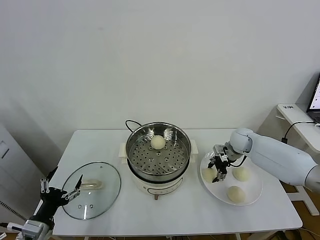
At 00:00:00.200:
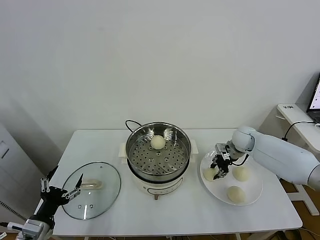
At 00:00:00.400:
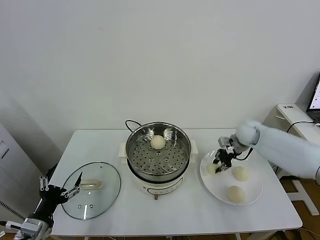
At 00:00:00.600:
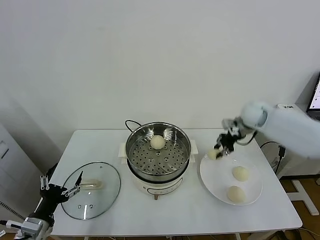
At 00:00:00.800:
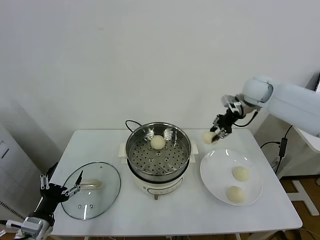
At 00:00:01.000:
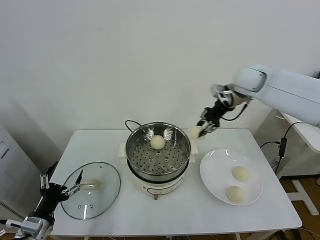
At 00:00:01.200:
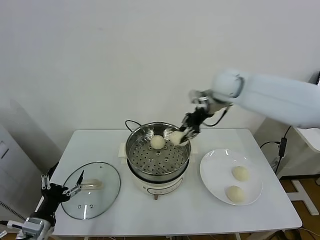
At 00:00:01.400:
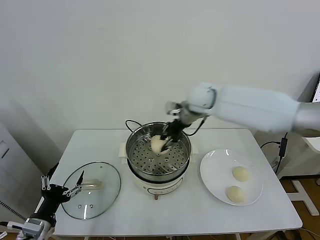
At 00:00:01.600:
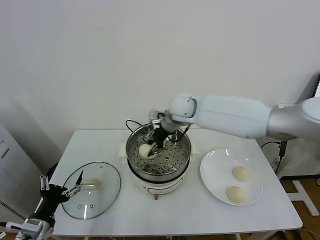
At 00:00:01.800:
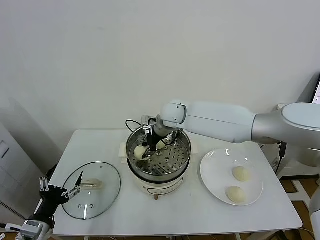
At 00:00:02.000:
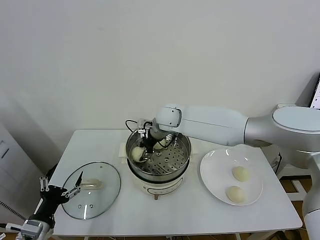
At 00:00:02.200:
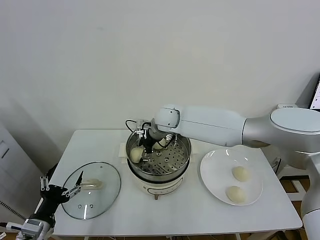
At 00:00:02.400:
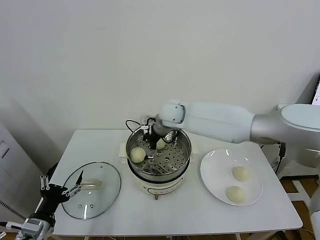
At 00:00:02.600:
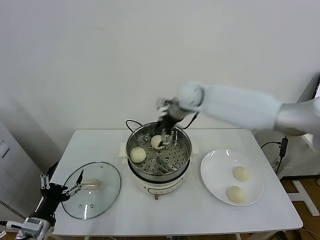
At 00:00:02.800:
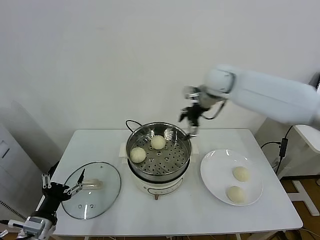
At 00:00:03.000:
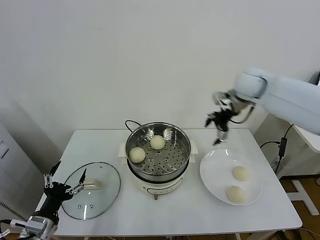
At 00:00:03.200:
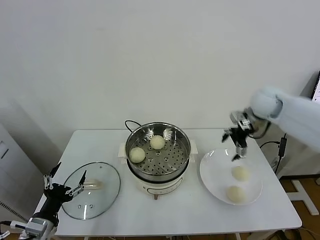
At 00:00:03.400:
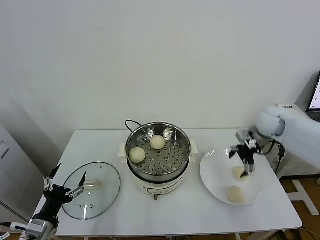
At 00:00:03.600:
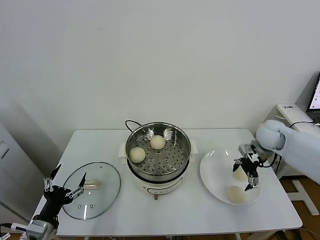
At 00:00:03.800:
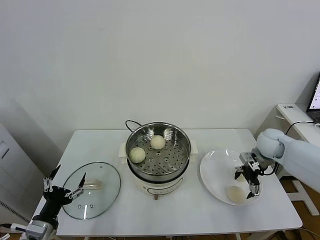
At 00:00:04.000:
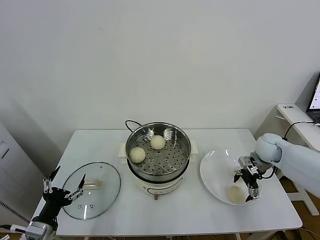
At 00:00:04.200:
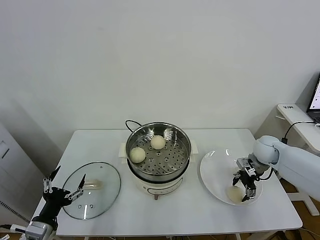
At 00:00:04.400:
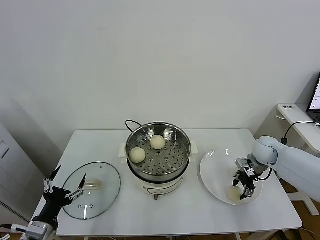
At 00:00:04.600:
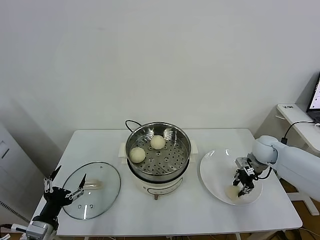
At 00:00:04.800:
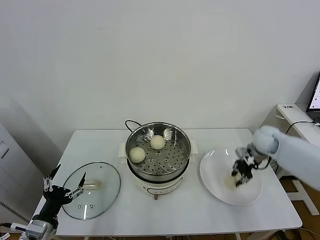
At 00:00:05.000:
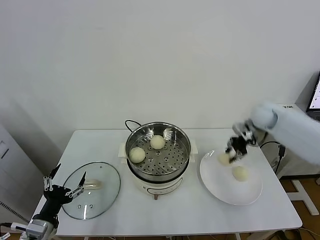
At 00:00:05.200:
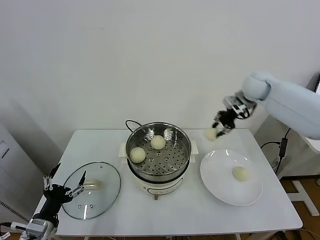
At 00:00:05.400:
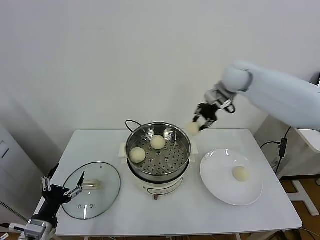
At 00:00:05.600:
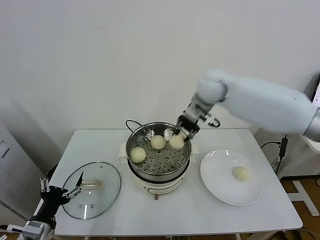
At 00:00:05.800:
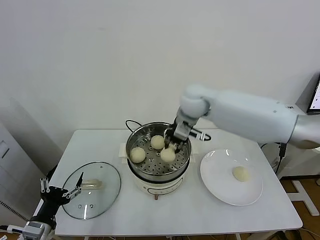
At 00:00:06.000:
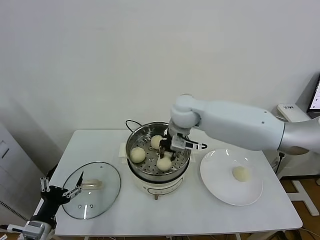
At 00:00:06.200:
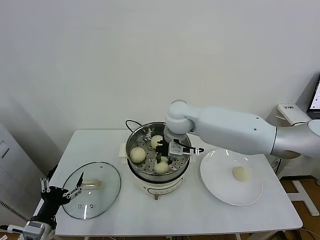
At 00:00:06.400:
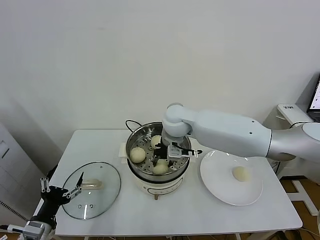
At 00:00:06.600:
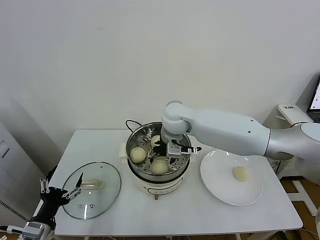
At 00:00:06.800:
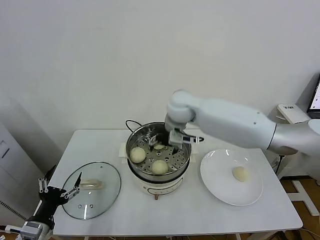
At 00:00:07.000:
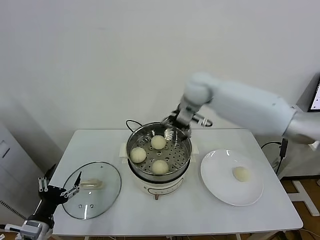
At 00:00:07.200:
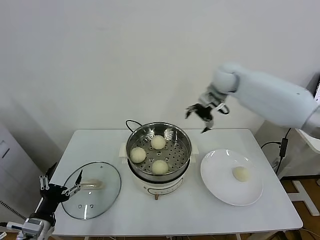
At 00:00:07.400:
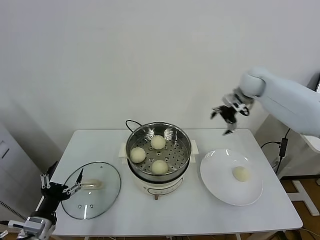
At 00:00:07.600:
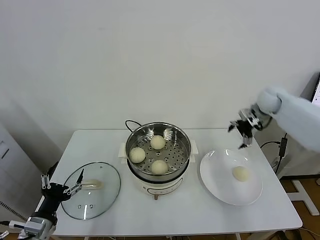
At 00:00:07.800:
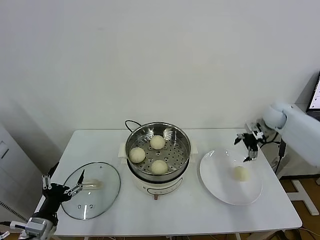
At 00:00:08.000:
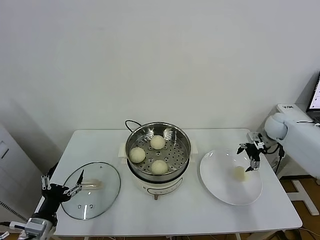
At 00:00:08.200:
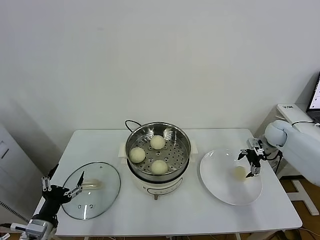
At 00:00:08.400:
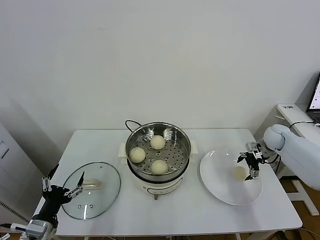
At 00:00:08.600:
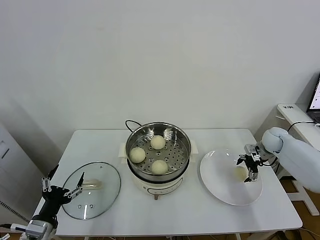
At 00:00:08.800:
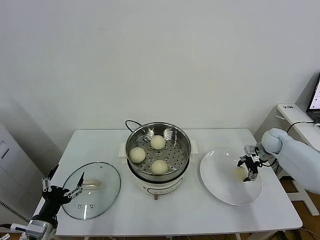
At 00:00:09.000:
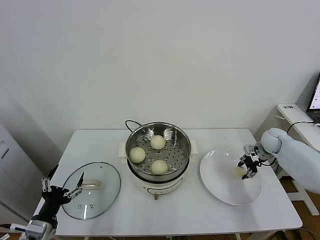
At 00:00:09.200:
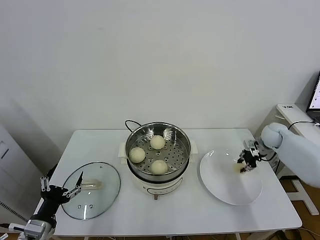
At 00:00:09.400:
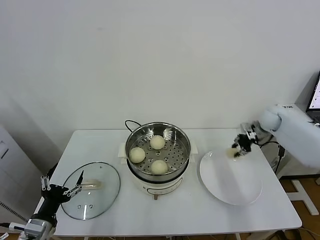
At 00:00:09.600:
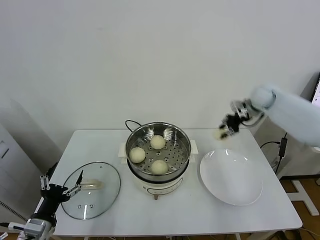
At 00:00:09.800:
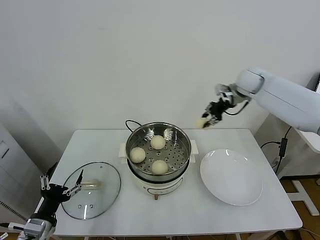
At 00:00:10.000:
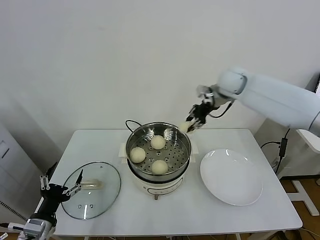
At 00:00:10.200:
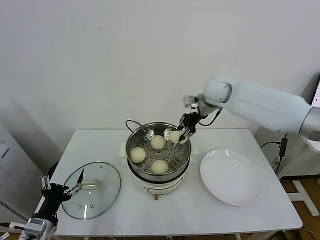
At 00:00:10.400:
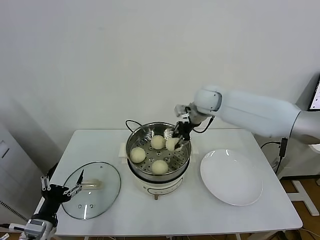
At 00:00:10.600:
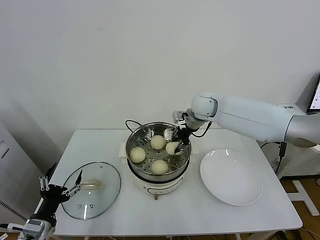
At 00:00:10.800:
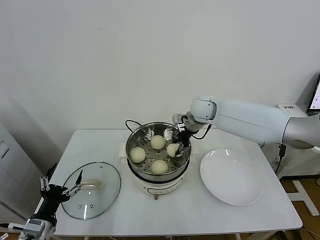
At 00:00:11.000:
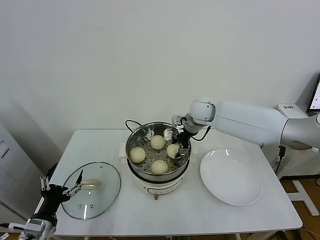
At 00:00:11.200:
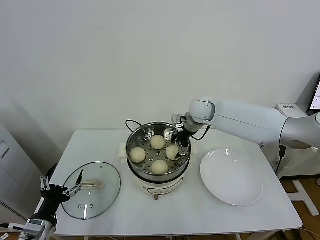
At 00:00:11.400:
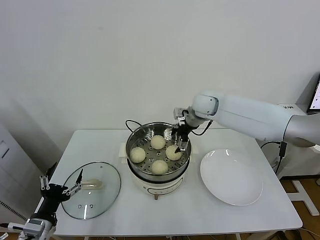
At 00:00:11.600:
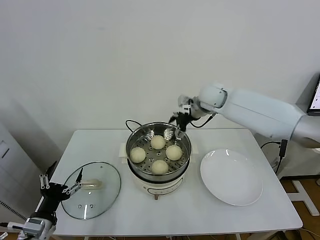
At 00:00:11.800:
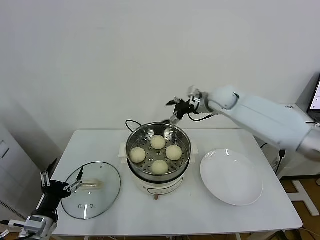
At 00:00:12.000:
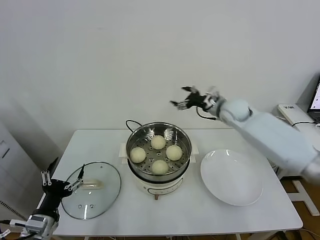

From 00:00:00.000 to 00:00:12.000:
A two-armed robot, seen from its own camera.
Task of the whole recording: take steamed baozi put them in steamer.
Step, from 00:00:00.200 to 00:00:02.200: Place the baozi on the steamer with right gripper.
Step, from 00:00:02.600 to 00:00:04.200: Grasp the baozi in the plate with right gripper.
Step, from 00:00:04.400 to 00:00:06.600: Place the baozi on the steamer with right gripper.
Step, from 00:00:06.800 to 00:00:08.800: Grasp the baozi in the plate with right gripper.
Step, from 00:00:09.200 to 00:00:11.200: Place the baozi on the steamer with right gripper.
From 00:00:00.000 to 00:00:01.600: The right gripper travels to the left and upward by approximately 30 cm.
From 00:00:01.600 to 00:00:03.000: The right gripper heads to the right, covering about 25 cm, and opens.
From 00:00:03.000 to 00:00:04.400: The right gripper travels downward and to the right by about 25 cm, and closes.
From 00:00:04.400 to 00:00:06.000: The right gripper shifts about 35 cm to the left and upward.
From 00:00:06.000 to 00:00:07.600: The right gripper travels to the right by some 35 cm, and opens.
From 00:00:07.600 to 00:00:09.000: The right gripper goes roughly 15 cm downward, and closes.
From 00:00:09.000 to 00:00:10.400: The right gripper is displaced to the left and upward by about 35 cm.
From 00:00:10.400 to 00:00:12.000: The right gripper goes some 10 cm to the right, and opens up.

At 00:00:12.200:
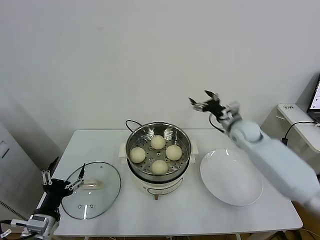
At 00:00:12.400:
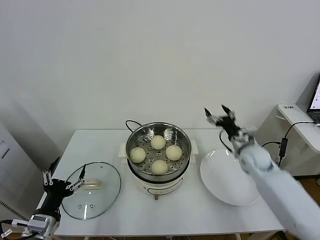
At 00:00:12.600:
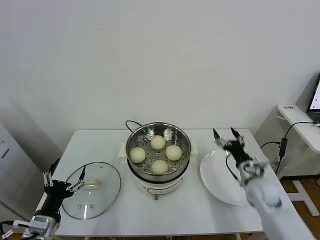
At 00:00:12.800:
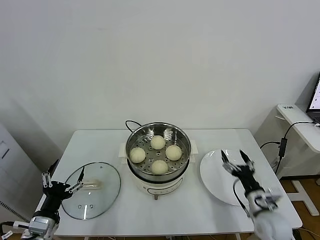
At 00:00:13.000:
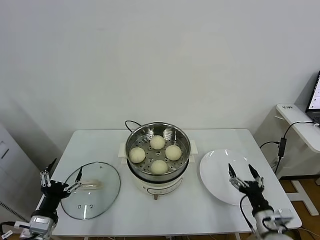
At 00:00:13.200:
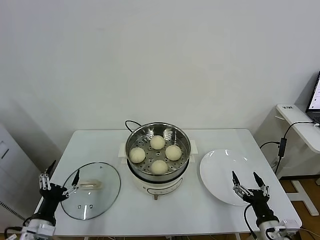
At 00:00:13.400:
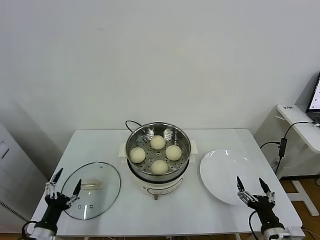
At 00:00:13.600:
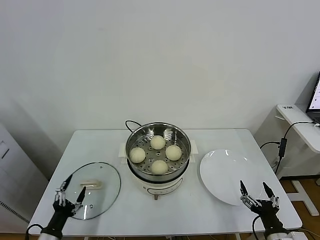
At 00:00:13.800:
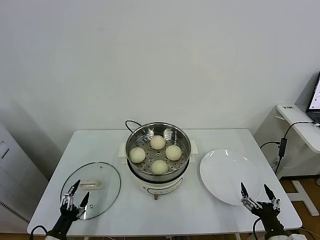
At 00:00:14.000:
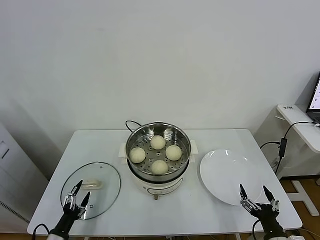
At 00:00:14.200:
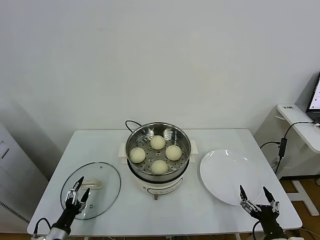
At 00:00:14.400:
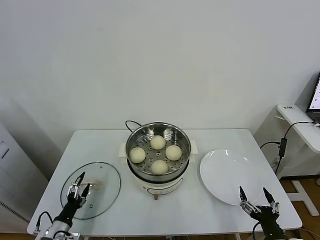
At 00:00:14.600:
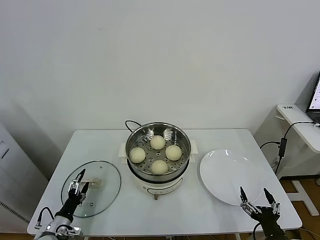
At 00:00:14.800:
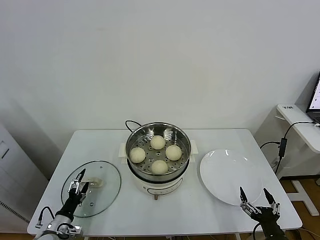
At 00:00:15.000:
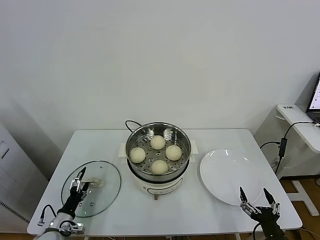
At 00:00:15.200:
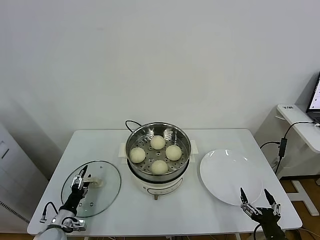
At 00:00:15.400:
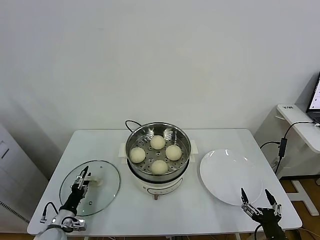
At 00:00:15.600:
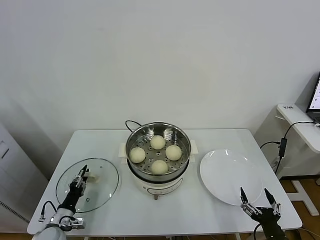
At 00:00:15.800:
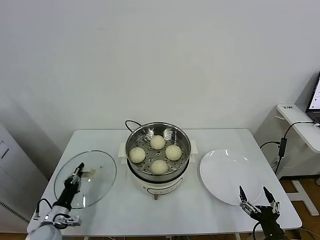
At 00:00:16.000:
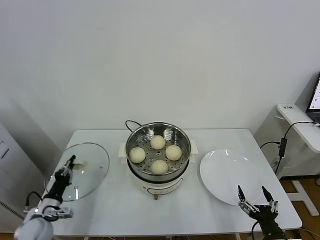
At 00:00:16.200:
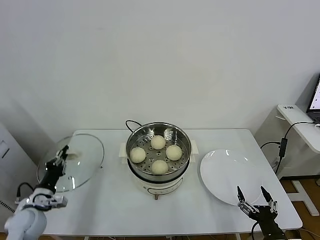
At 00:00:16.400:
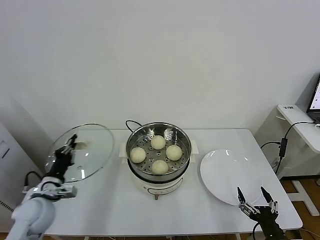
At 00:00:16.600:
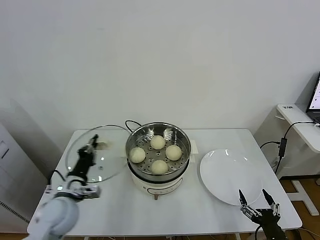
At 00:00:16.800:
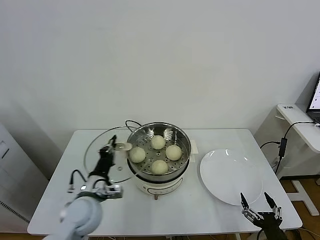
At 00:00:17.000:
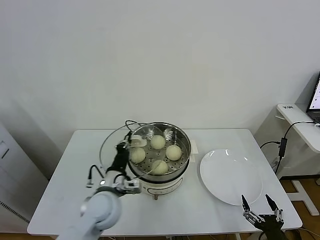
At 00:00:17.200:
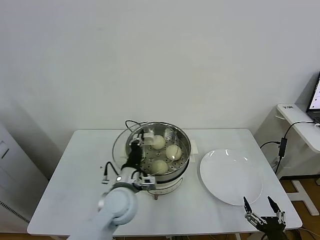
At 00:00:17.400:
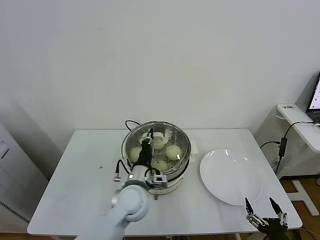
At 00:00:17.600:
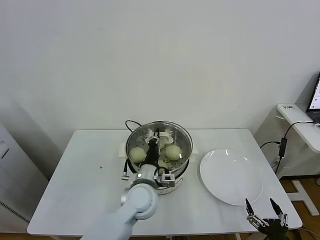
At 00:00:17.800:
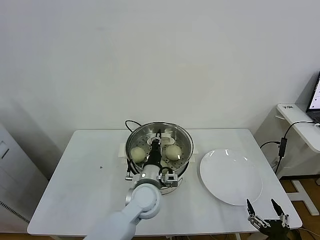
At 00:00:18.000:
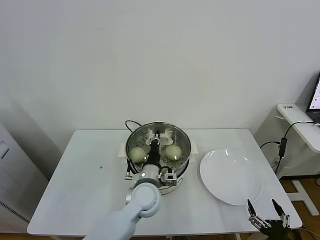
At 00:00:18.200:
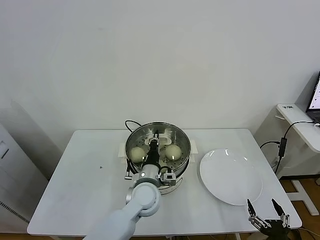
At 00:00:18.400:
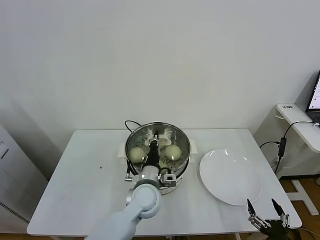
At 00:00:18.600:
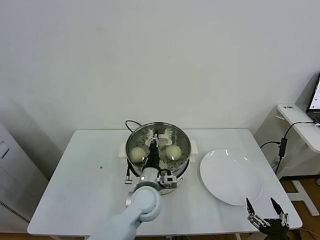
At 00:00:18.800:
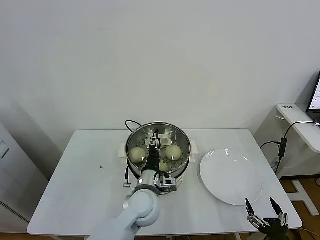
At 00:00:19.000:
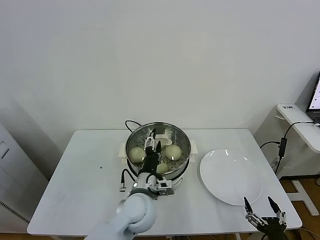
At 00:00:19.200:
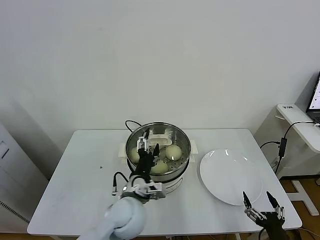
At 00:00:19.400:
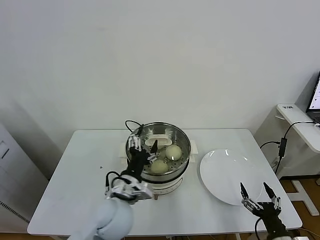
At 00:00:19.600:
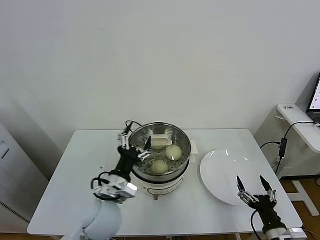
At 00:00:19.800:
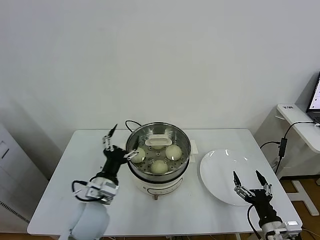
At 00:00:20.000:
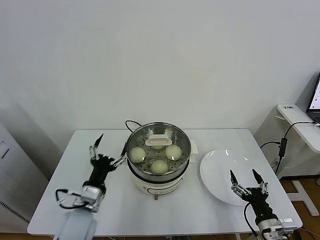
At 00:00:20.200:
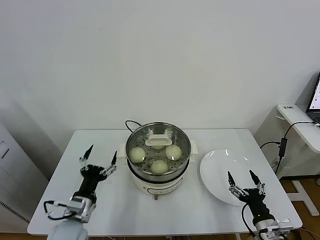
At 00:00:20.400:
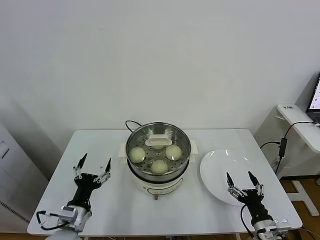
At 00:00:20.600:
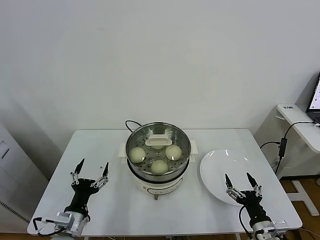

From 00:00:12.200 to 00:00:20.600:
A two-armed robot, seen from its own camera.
Task of the whole recording: take steamed baozi put them in steamer.
Step, from 00:00:12.200 to 00:00:15.800: Grasp the pot lid with left gripper.
Step, from 00:00:16.200 to 00:00:19.200: Place the pot lid on the steamer with left gripper.
From 00:00:12.200 to 00:00:13.600: The left gripper heads downward, covering about 10 cm. The right gripper is displaced backward and downward by some 40 cm.
From 00:00:13.600 to 00:00:15.000: The left gripper moves forward and downward, roughly 10 cm.
From 00:00:15.000 to 00:00:16.400: The left gripper heads upward, covering about 15 cm, and closes its fingers.
From 00:00:16.400 to 00:00:17.800: The left gripper is displaced to the right by about 35 cm.
From 00:00:17.800 to 00:00:19.200: The left gripper shifts by about 5 cm, and opens its fingers.
From 00:00:19.200 to 00:00:20.600: The left gripper moves to the left, approximately 20 cm, while the right gripper goes some 10 cm forward.
